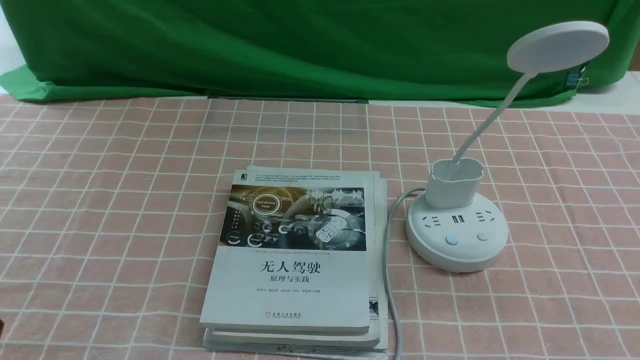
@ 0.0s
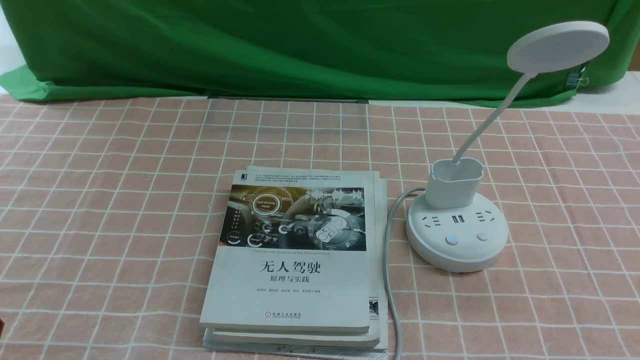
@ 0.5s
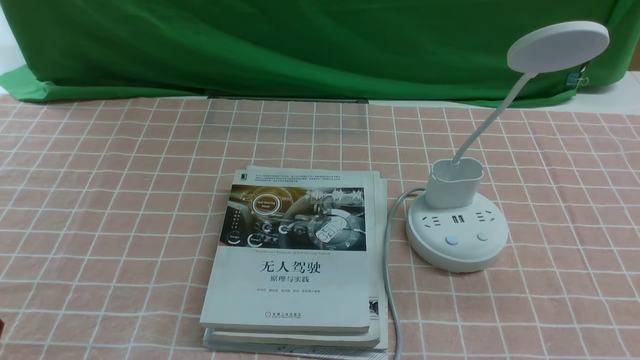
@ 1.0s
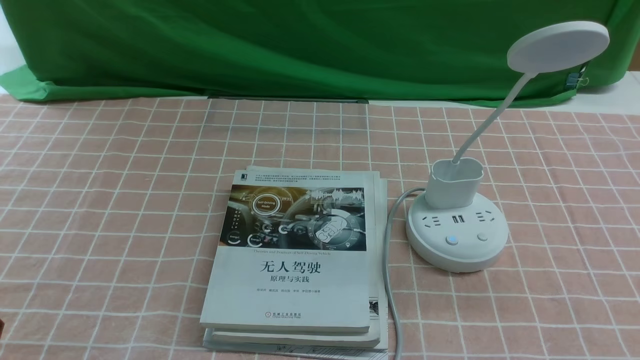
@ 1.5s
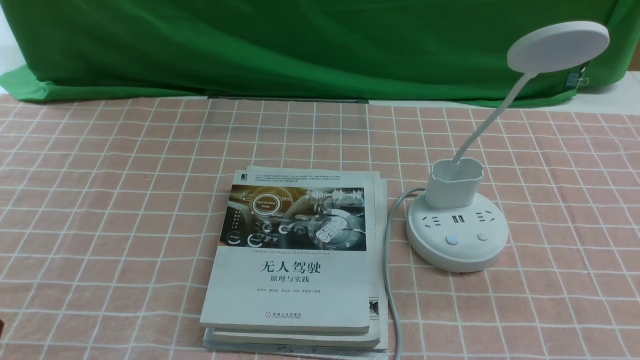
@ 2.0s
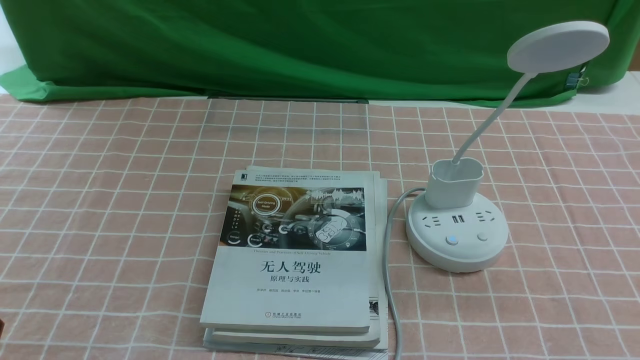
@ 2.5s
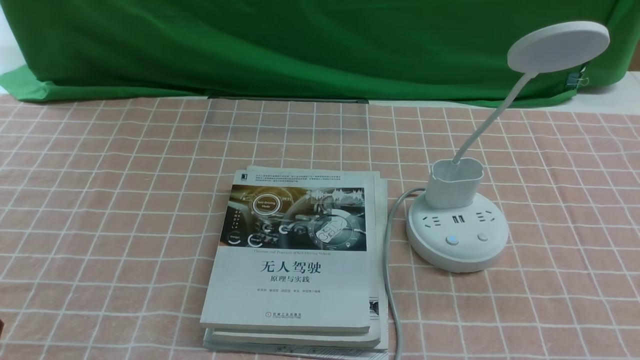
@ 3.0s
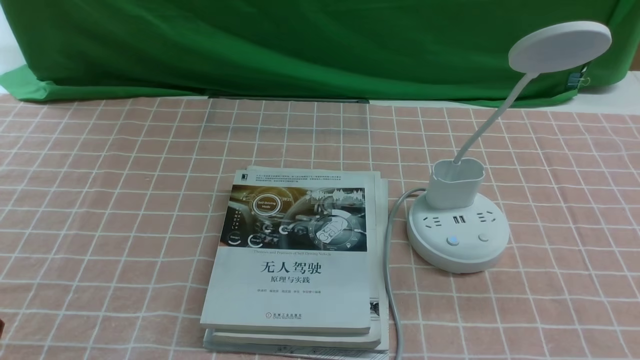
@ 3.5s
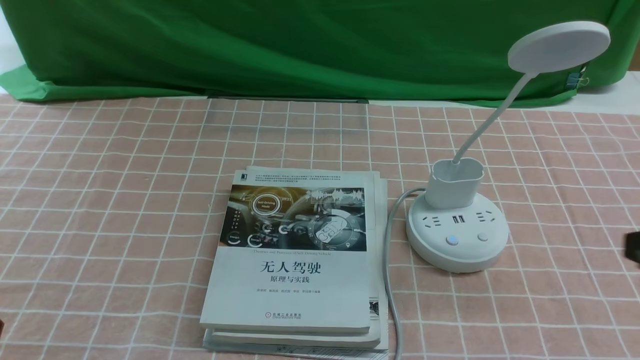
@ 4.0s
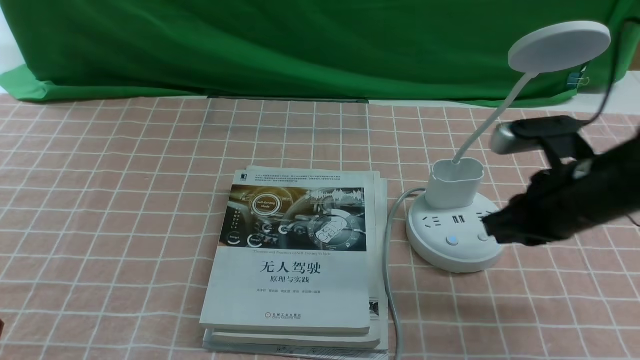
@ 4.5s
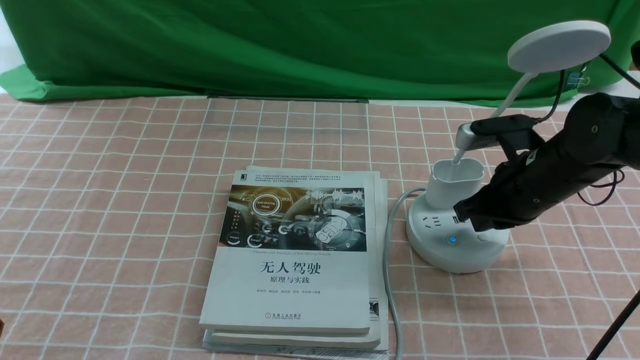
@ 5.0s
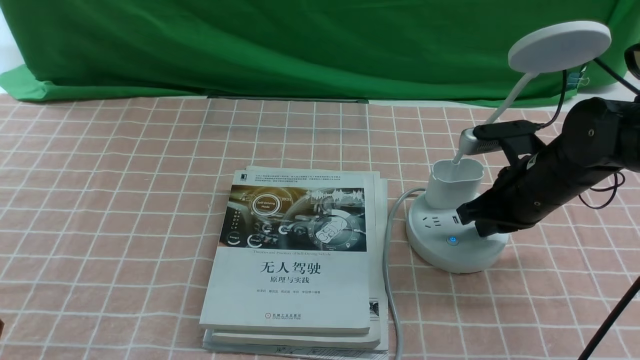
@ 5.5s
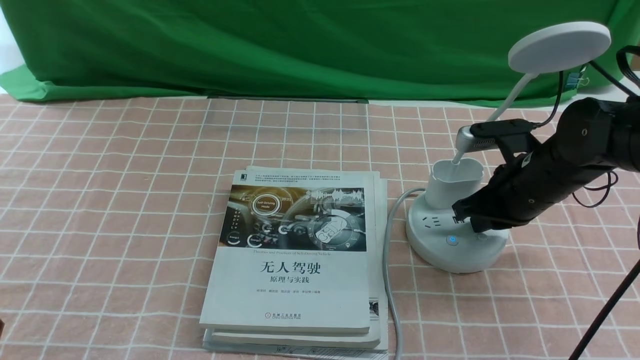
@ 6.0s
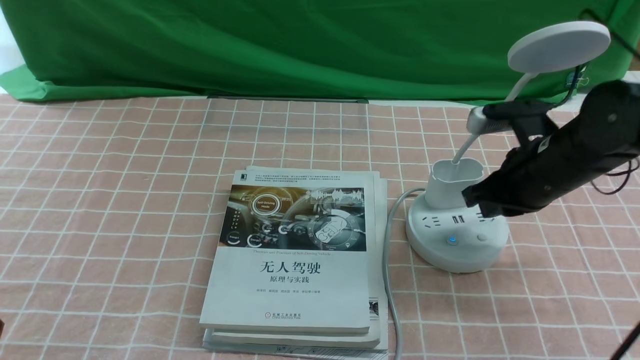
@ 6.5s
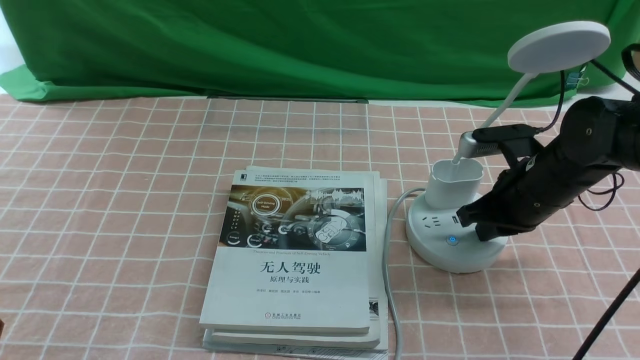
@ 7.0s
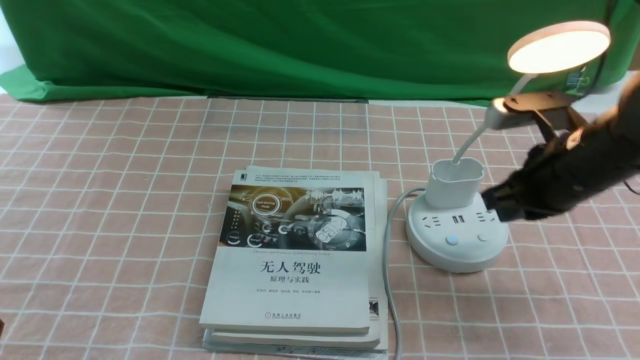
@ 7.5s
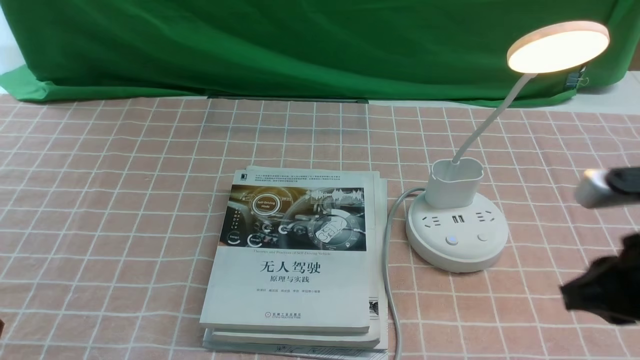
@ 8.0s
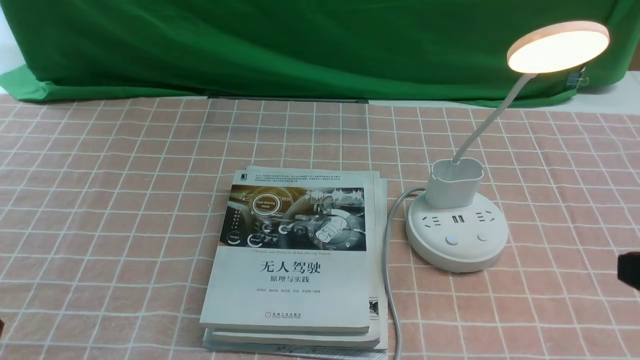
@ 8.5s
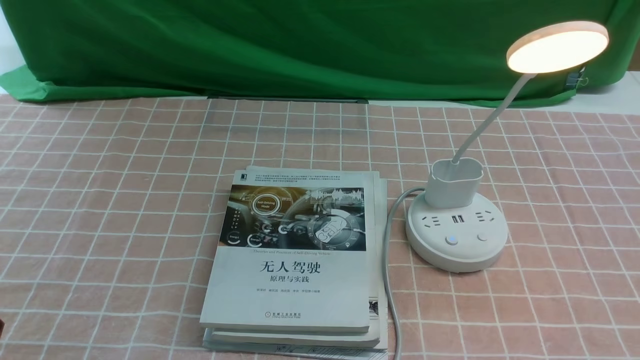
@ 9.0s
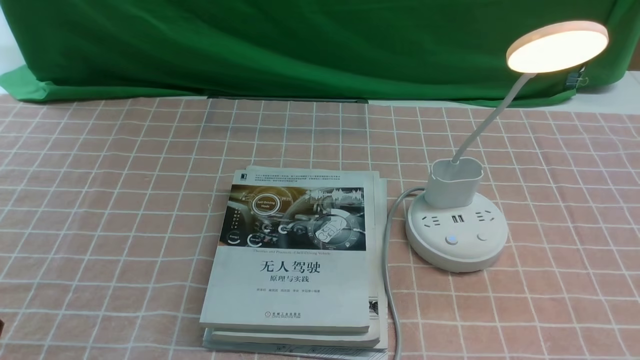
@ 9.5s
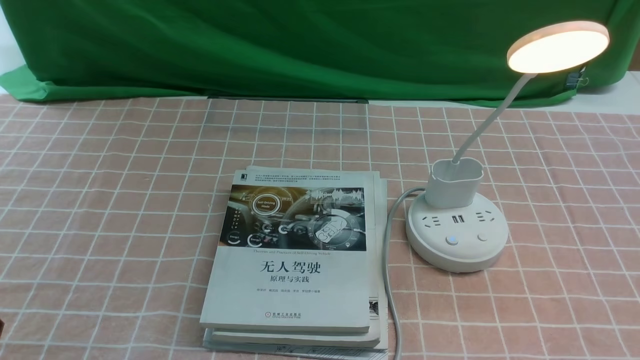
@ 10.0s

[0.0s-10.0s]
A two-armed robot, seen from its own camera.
Step, 0.0s to 7.0s: use the right arm to press the button switch on the lamp holder.
0.0s to 2.0s: Both grippers stay put.
4.0s to 6.0s: The right gripper shifts some 20 cm forward and downward.
6.0s to 8.0s: The right gripper is displaced backward and upward by approximately 20 cm.
8.0s to 10.0s: The right gripper travels backward, downward and to the right by some 15 cm.
